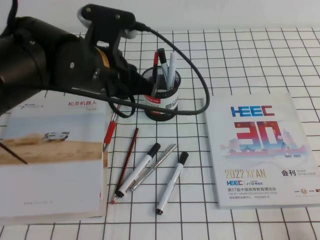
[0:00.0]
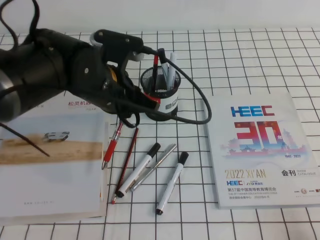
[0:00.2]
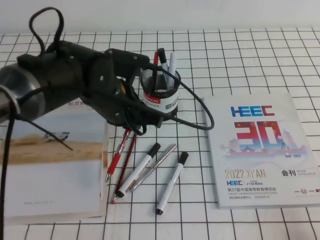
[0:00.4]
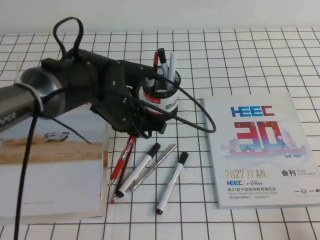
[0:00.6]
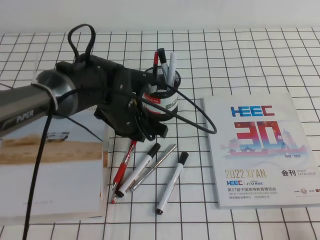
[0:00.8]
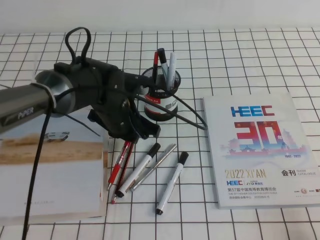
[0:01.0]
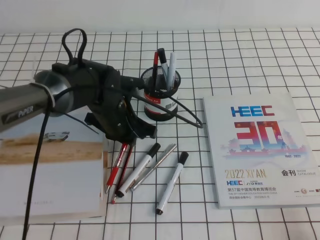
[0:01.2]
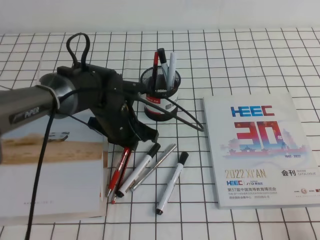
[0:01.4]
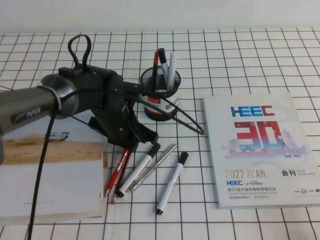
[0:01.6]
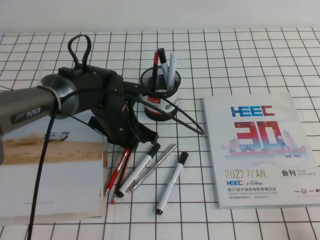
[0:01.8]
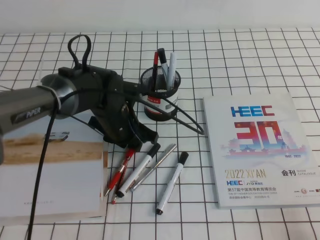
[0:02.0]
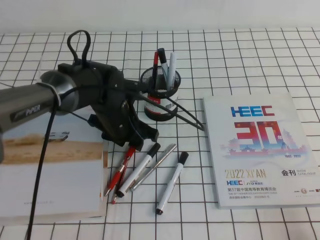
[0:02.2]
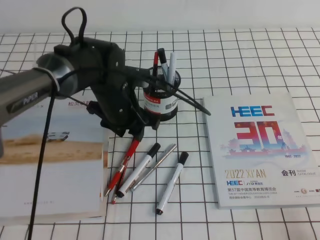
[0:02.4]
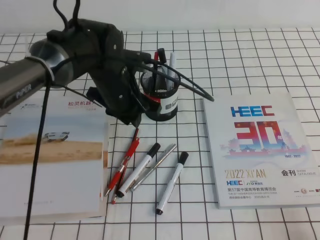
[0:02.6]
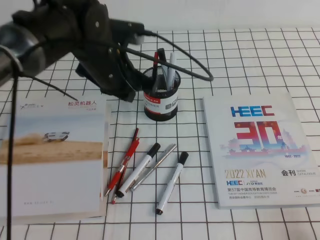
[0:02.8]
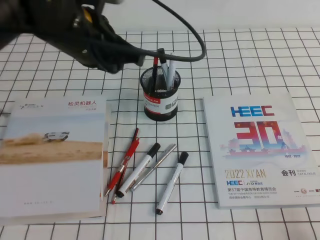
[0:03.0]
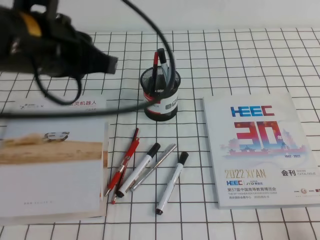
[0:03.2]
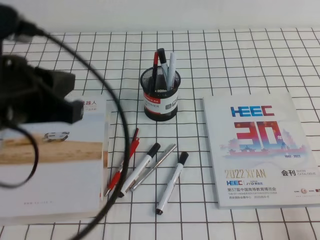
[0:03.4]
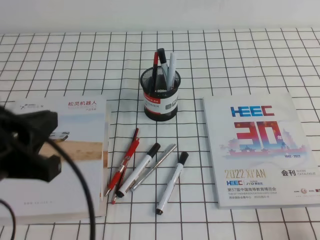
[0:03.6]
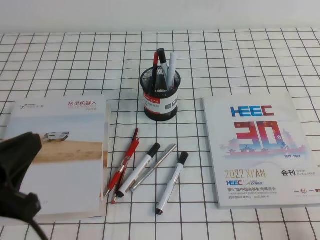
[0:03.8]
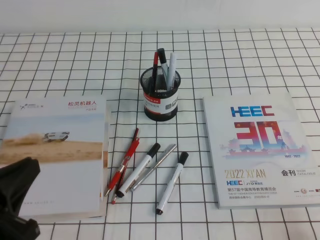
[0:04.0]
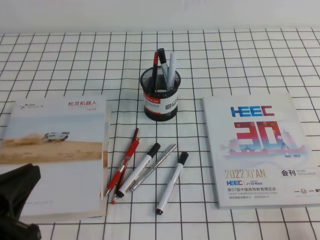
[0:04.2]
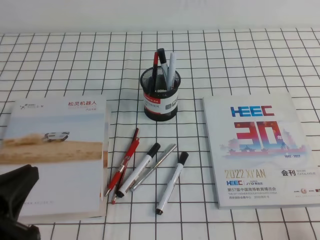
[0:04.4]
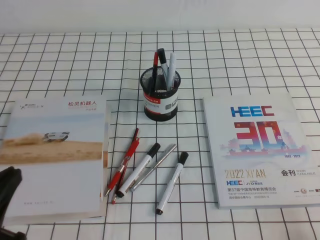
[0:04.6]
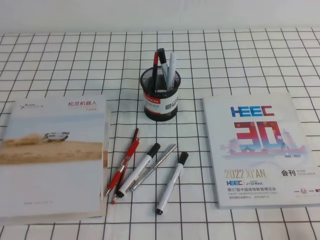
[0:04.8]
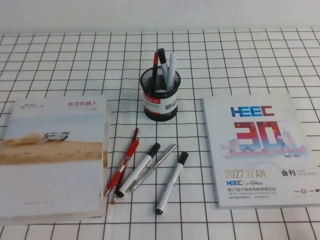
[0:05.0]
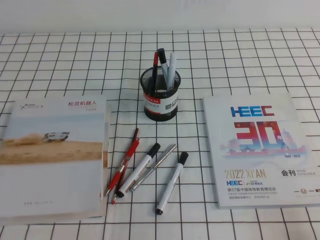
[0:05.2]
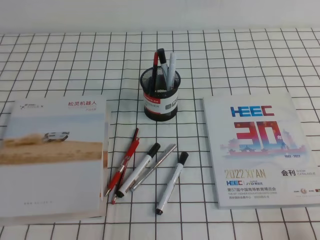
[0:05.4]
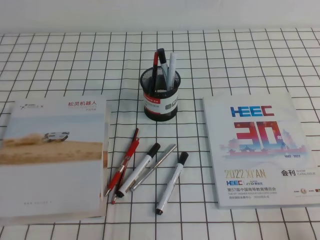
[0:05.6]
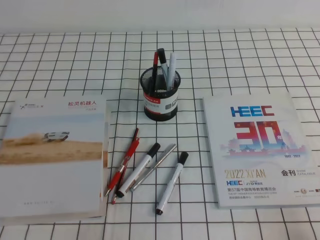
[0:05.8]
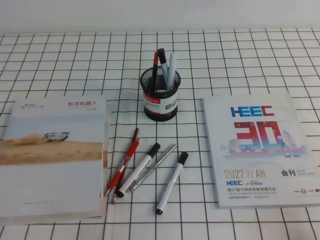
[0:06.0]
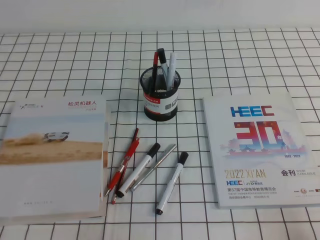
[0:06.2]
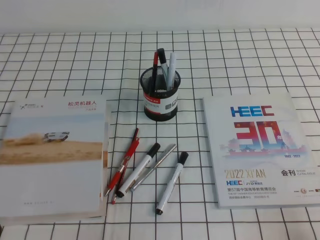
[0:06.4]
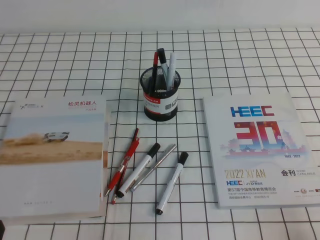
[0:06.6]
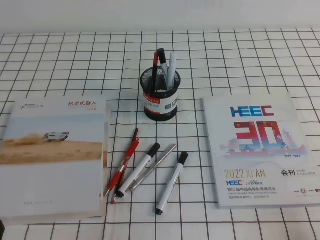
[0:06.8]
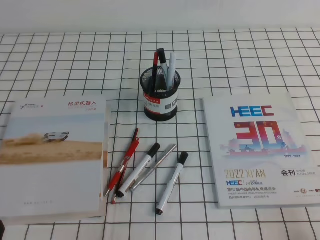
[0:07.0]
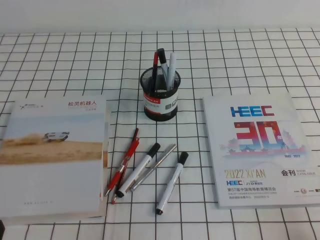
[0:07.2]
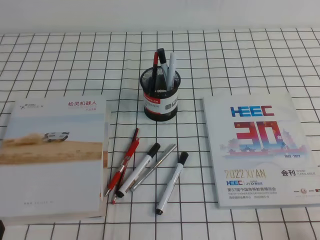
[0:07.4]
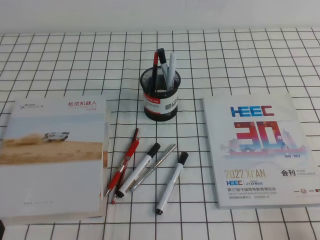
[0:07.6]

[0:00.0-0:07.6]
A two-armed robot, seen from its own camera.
Step, 0:00.0 to 0:07.6: Pick up the pen from the pen holder.
0:00.0 to 0:01.6: The left gripper heads downward, covering some 15 cm.
0:01.6 to 0:03.0: The left gripper travels upward by roughly 20 cm, and opens and closes again.
0:03.0 to 0:04.6: The left gripper is displaced backward and to the left by roughly 25 cm.
0:04.6 to 0:06.0: The left gripper shifts approximately 10 cm downward.
